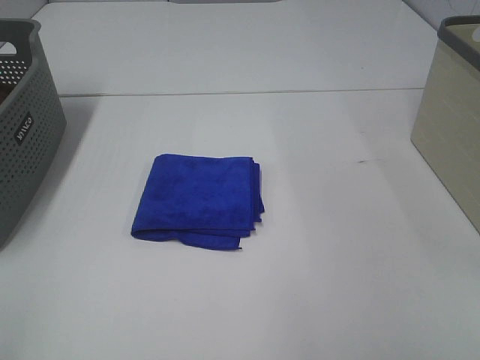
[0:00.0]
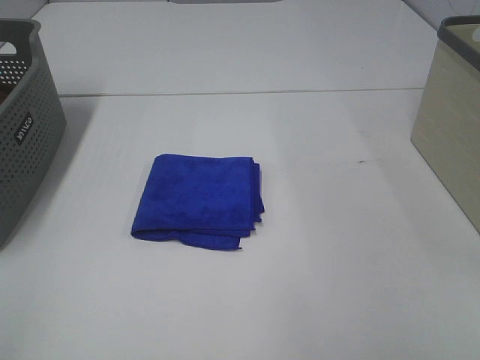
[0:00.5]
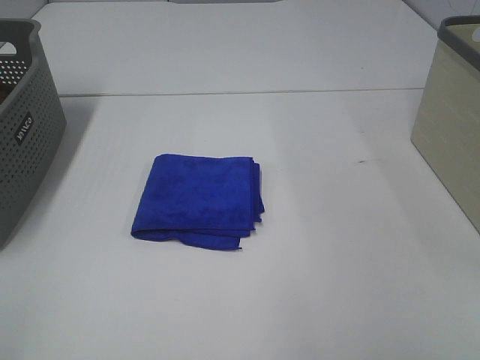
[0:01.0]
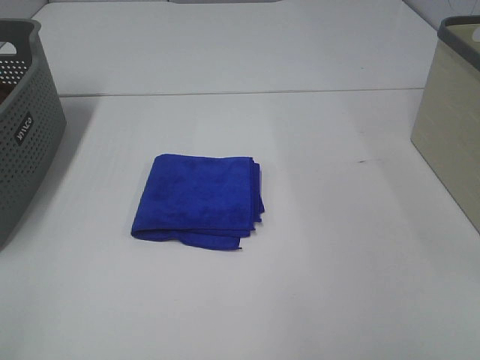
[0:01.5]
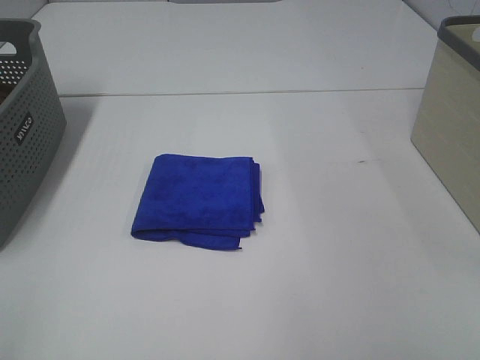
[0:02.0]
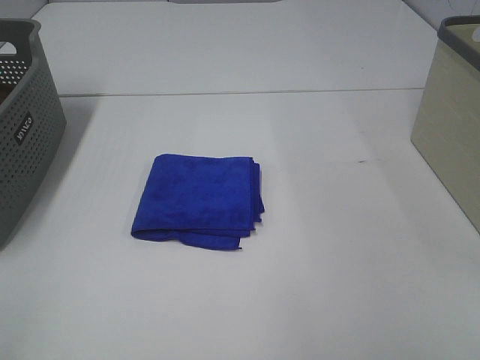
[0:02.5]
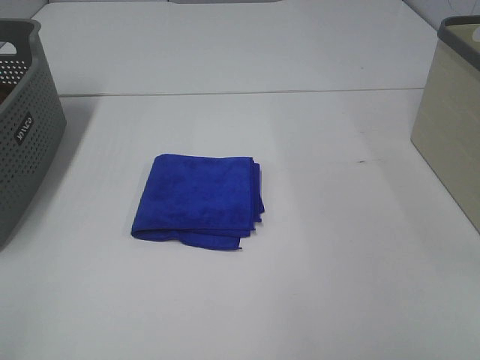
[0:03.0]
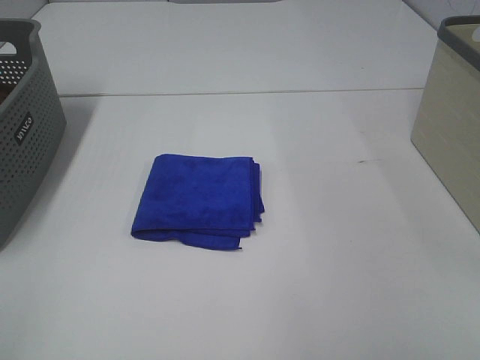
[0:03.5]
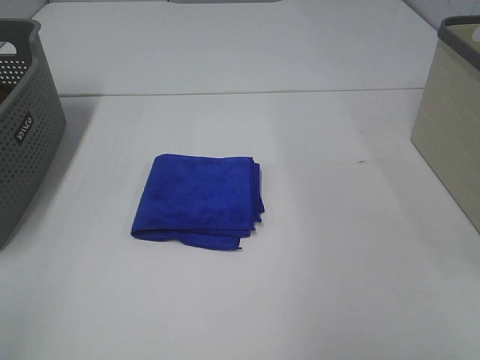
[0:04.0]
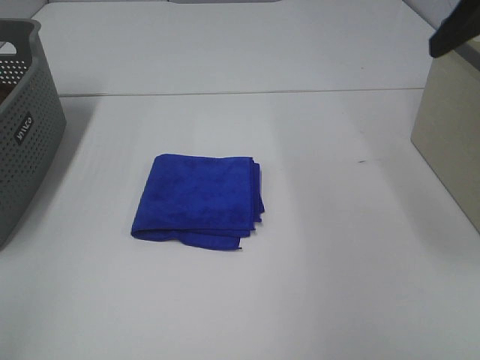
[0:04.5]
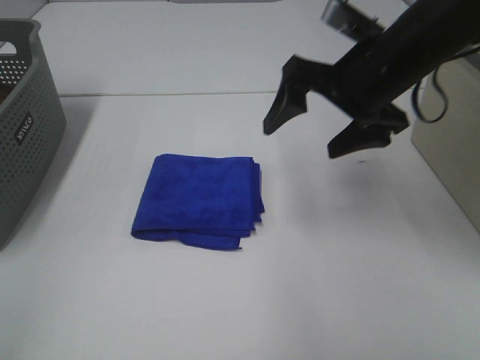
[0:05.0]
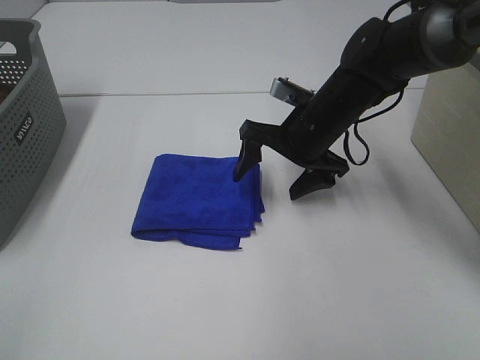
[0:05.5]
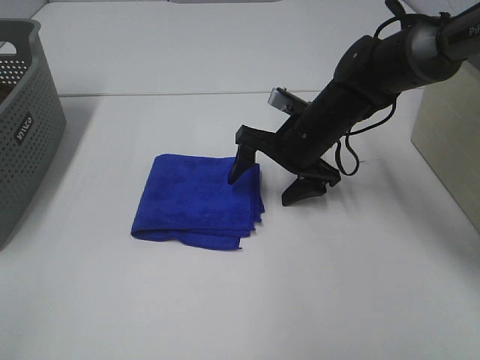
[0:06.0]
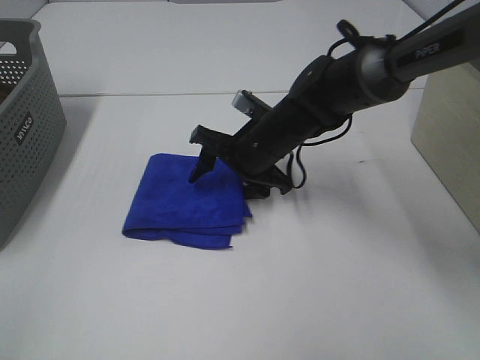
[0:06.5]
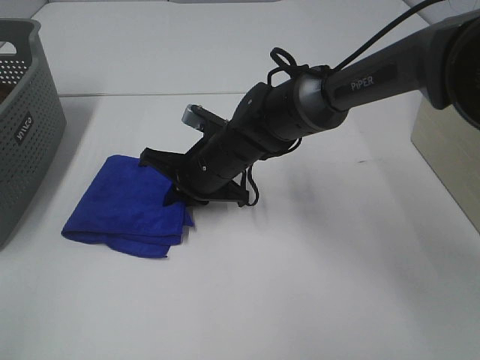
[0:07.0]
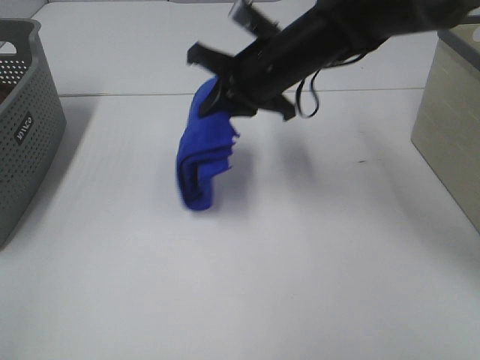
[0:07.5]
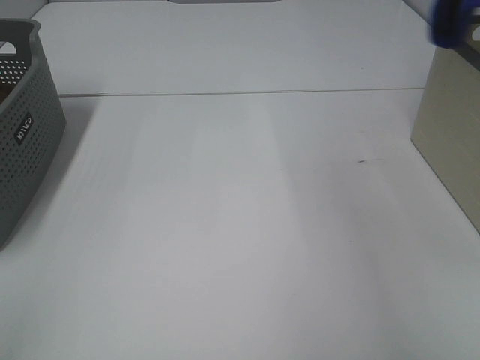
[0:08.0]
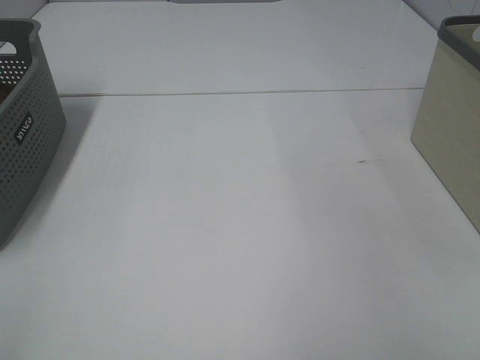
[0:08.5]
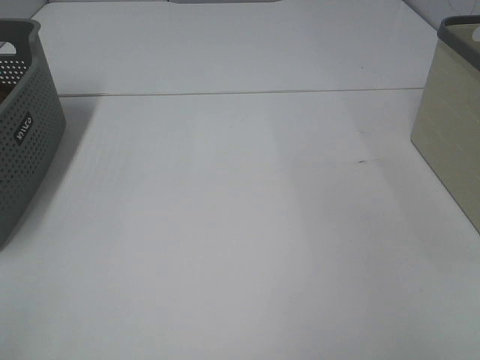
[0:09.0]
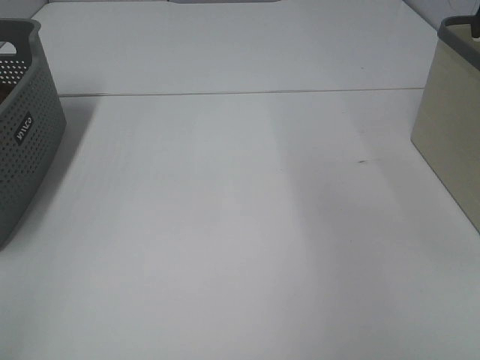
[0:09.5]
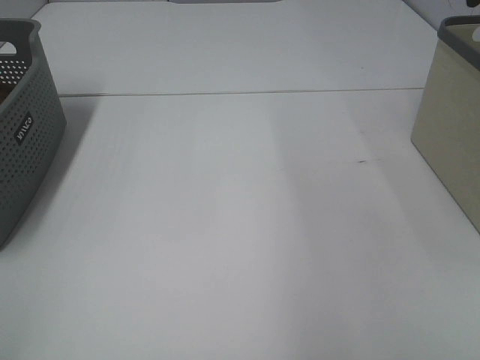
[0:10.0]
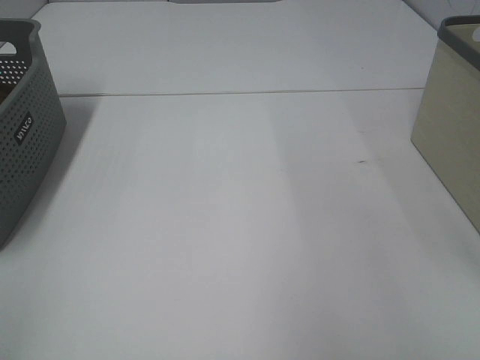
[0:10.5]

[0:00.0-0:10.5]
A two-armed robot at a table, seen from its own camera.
Step, 0:00.0 to 0:06.5: Right hand: grab the folded blue towel.
Step, 0:07.0 to 0:09.0: Right hand: place the blue towel in right basket.
0:00.0 to 0:02.0: Both grippers stay about where they are.
0:04.0 to 0:06.5: The right gripper is displaced downward, to the left and forward by approximately 40 cm.
0:06.5 to 0:08.5: The right gripper travels to the right and upward by approximately 50 cm, and closes.

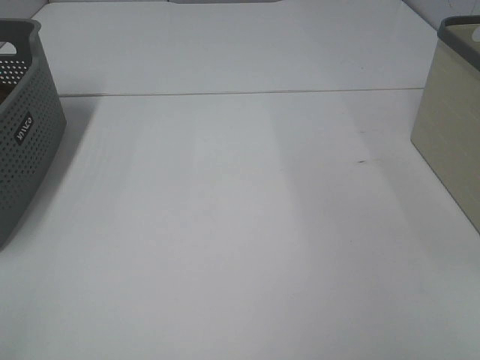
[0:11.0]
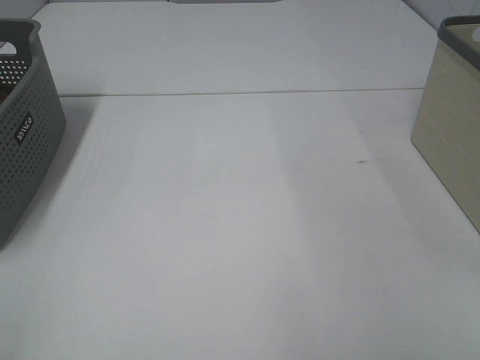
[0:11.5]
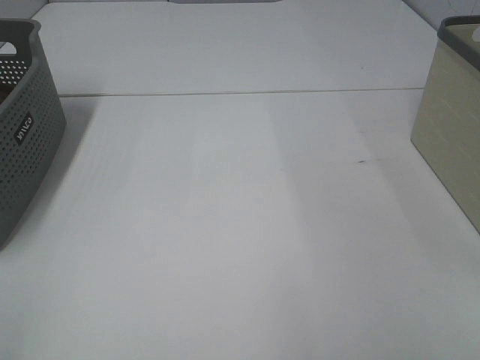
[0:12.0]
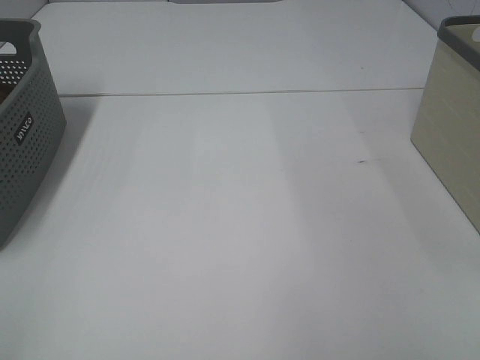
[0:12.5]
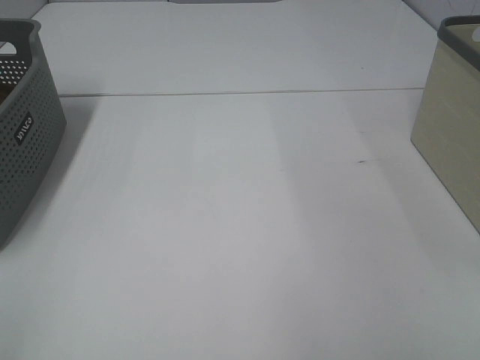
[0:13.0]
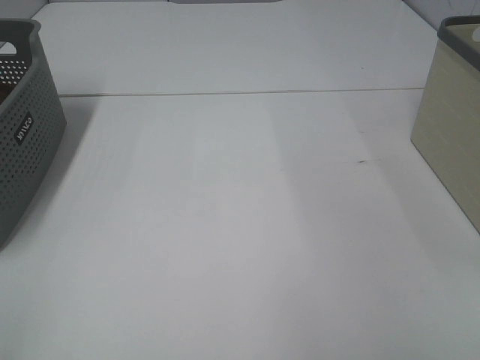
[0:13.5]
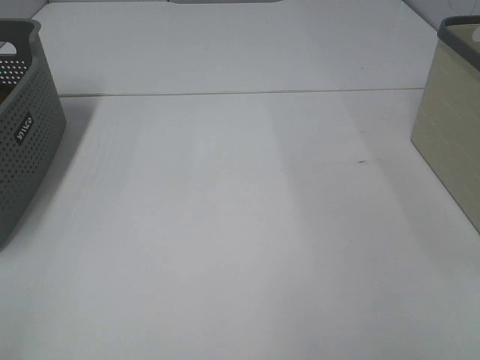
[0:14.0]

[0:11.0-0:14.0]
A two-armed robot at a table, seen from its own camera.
0:12.5 to 0:14.0: Neither gripper changes place.

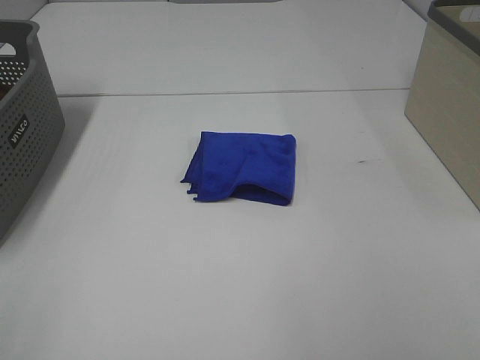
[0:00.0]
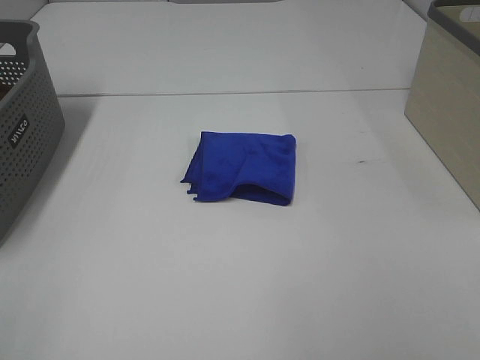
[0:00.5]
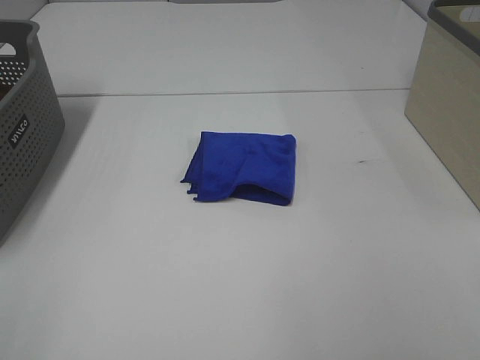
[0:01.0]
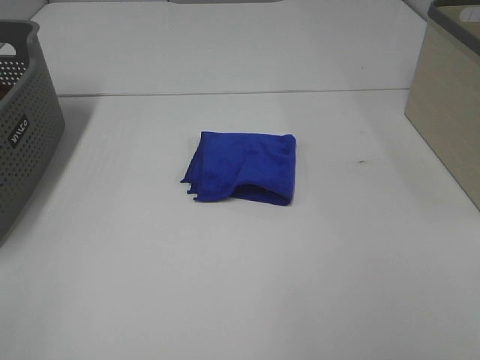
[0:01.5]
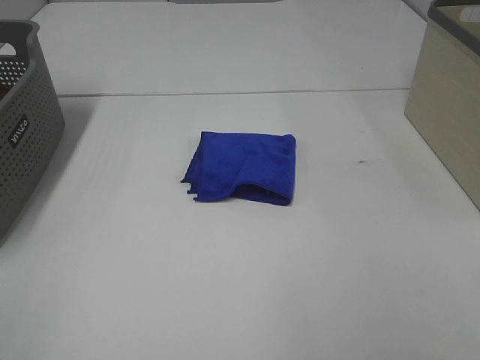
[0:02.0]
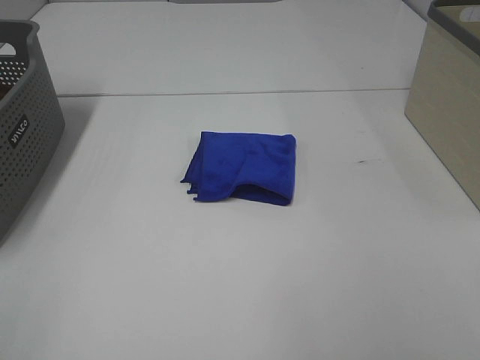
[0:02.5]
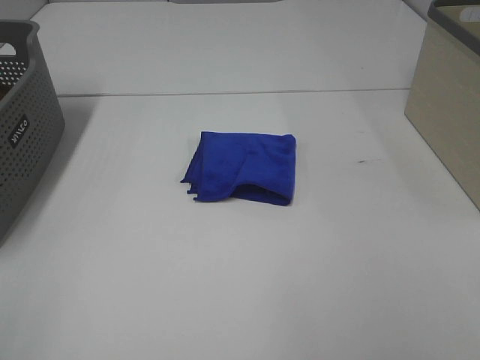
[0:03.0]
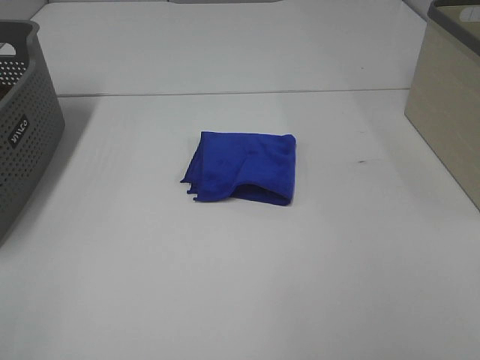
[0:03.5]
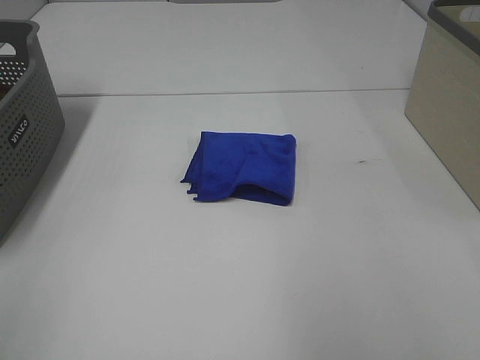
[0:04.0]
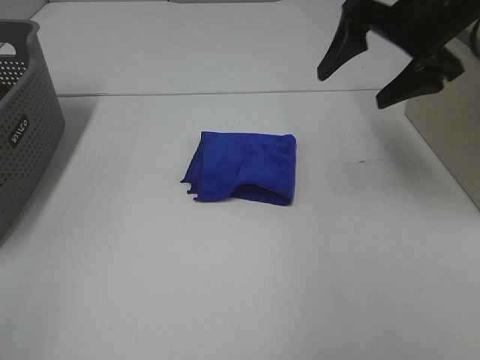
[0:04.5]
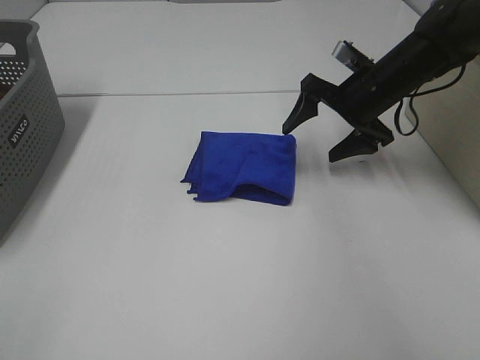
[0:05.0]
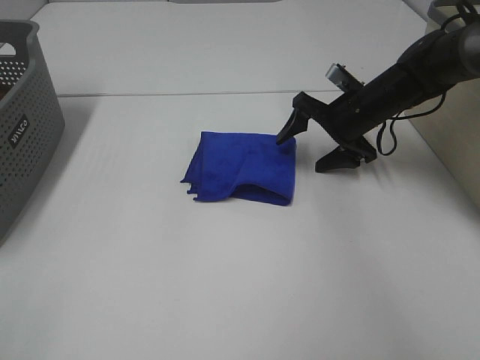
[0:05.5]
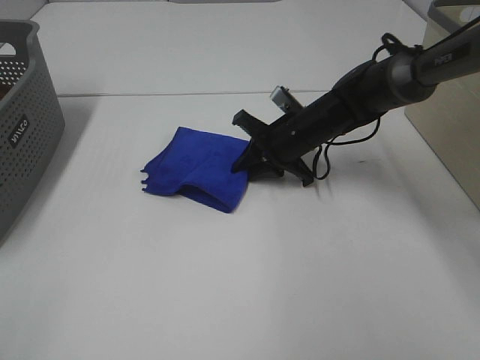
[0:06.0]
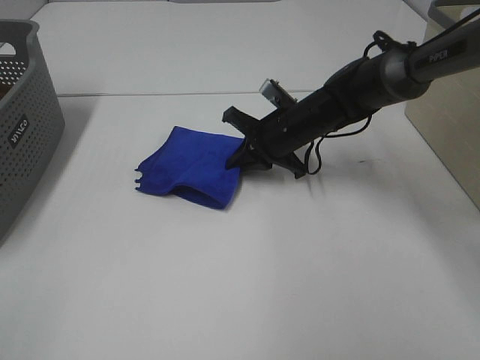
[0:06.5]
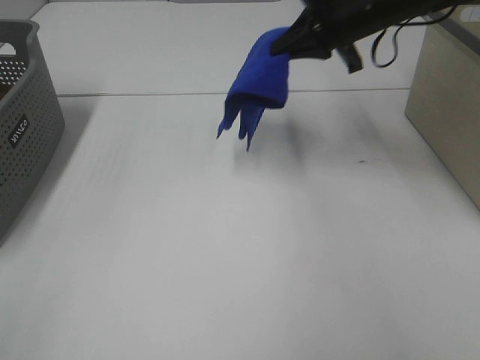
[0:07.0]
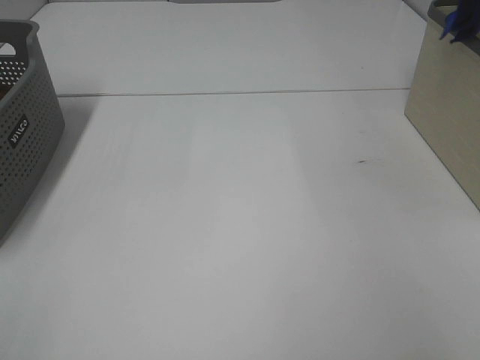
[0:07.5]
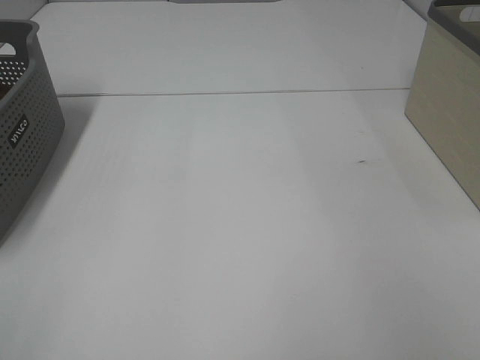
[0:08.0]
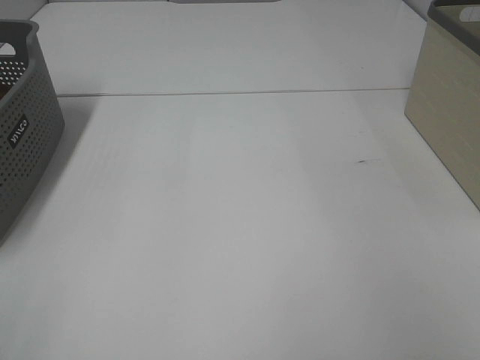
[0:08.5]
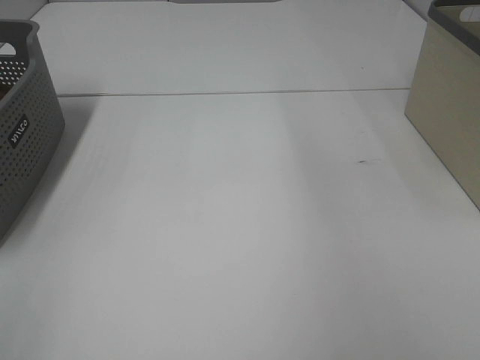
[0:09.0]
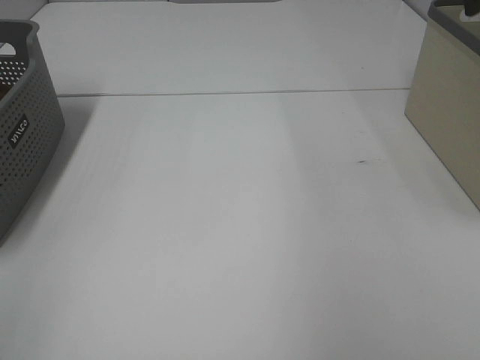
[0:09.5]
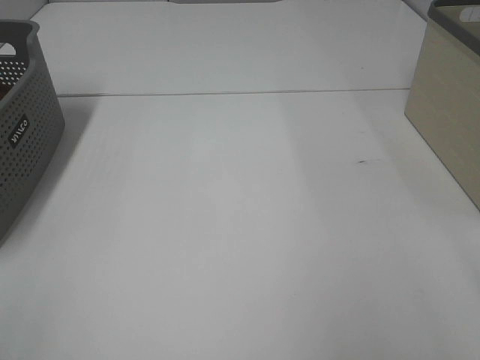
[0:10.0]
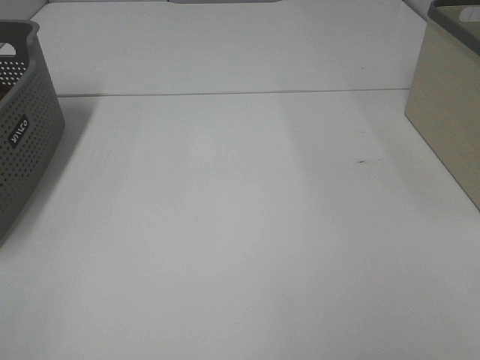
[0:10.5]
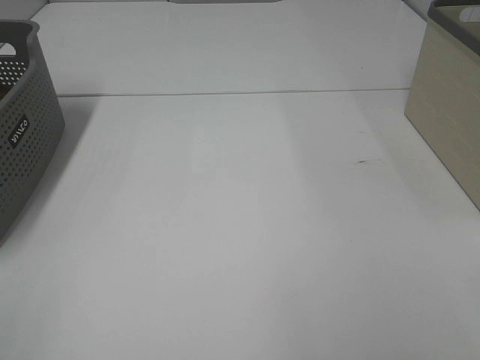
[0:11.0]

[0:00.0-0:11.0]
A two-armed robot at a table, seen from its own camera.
Step, 0:00.0 to 0:06.0: Right hand: grab the folded blue towel.
Step, 0:06.5 to 0:08.5: Right hand: place the blue towel in right basket.
0:00.0 to 0:03.5: Both grippers stay put.
0:03.5 to 0:05.5: The right gripper is displaced forward and downward by approximately 50 cm.
0:05.5 to 0:07.5: The right gripper travels upward and to the right by some 35 cm, and closes up.

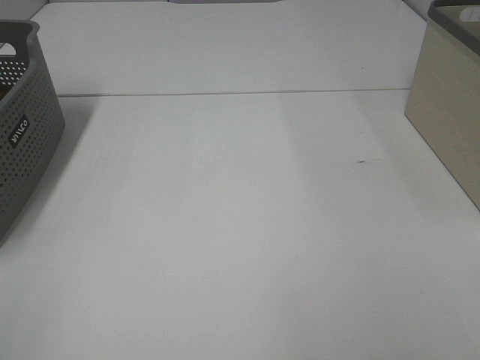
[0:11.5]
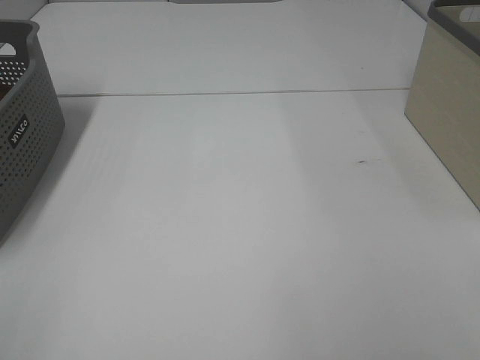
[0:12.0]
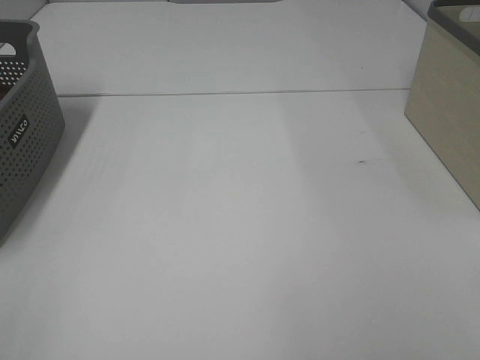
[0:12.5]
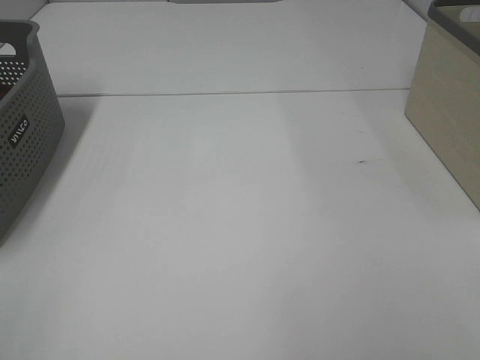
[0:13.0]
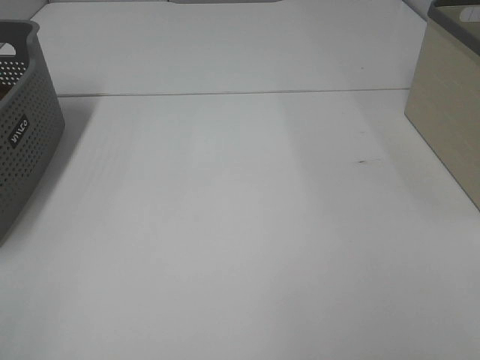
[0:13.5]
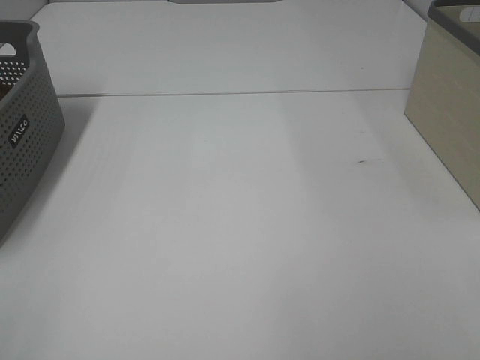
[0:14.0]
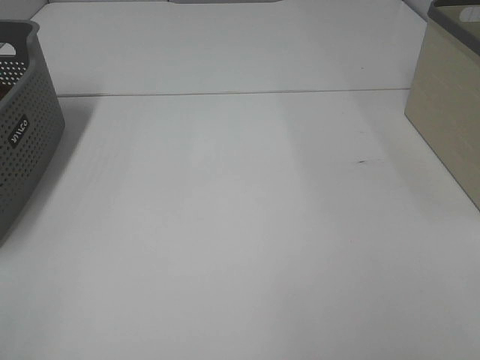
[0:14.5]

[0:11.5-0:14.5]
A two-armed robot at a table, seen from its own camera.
0:11.5 to 0:14.5: Both grippers stay about where they are.
